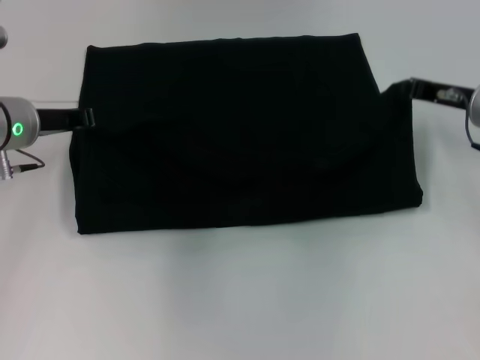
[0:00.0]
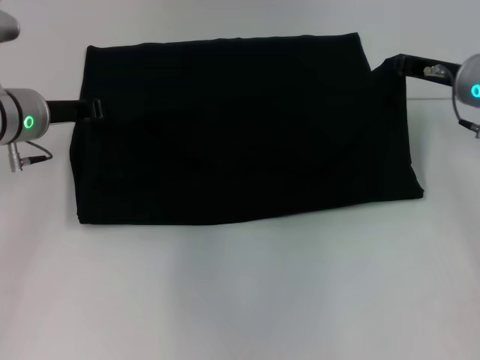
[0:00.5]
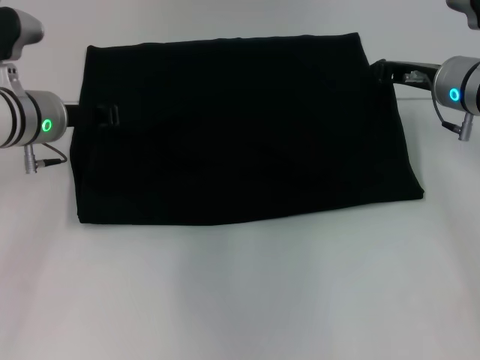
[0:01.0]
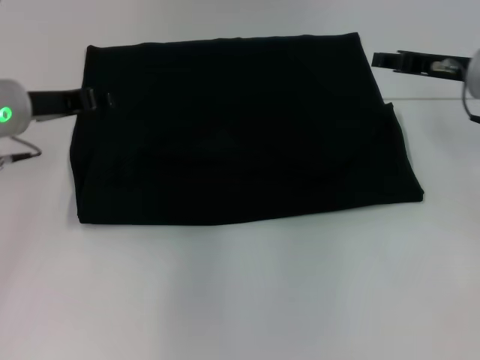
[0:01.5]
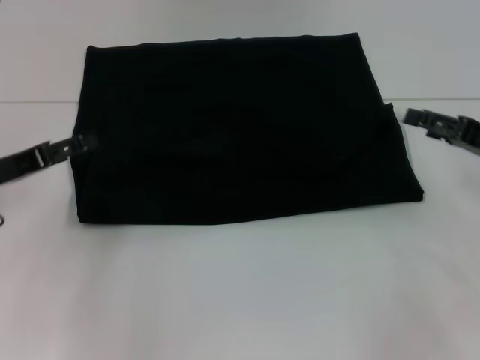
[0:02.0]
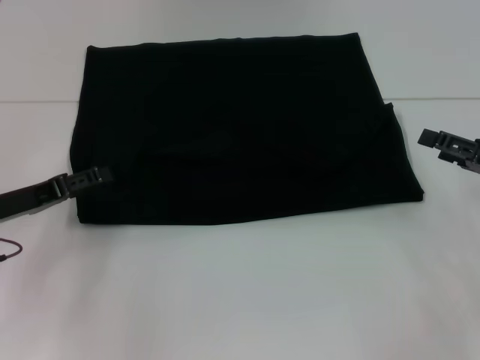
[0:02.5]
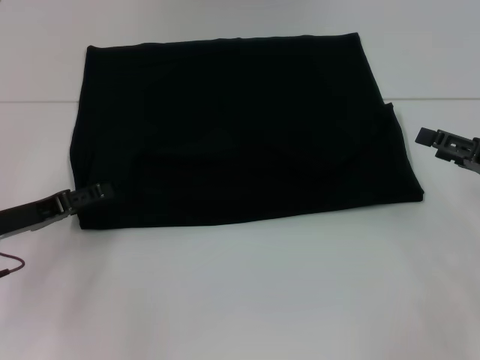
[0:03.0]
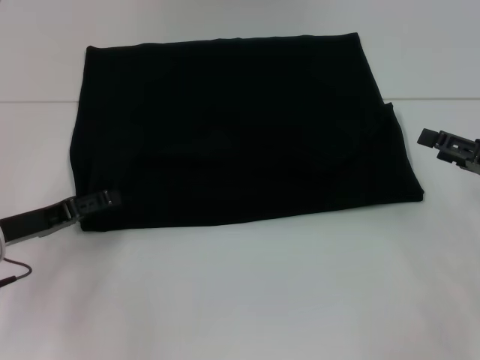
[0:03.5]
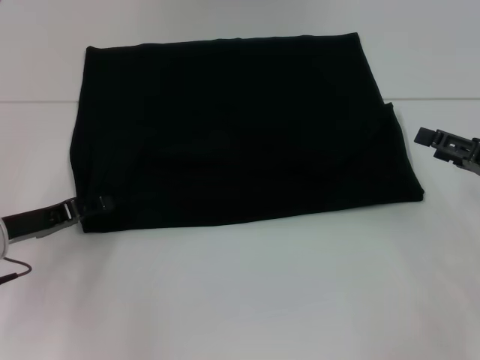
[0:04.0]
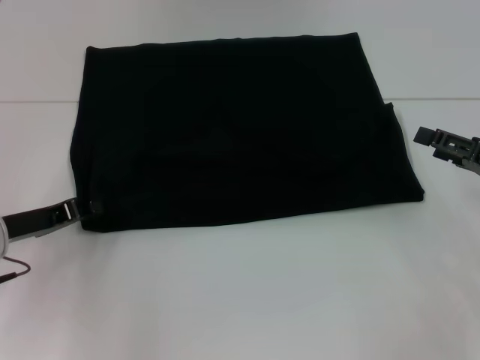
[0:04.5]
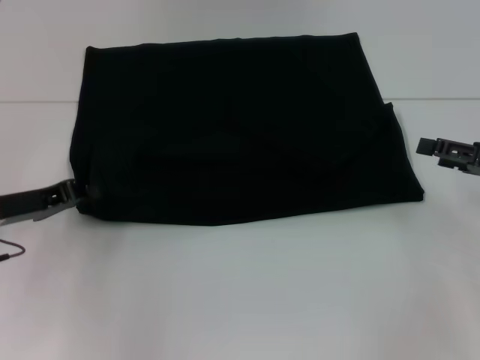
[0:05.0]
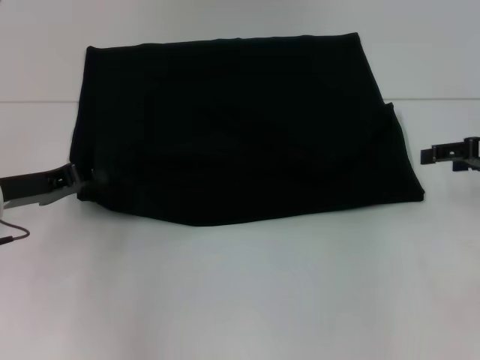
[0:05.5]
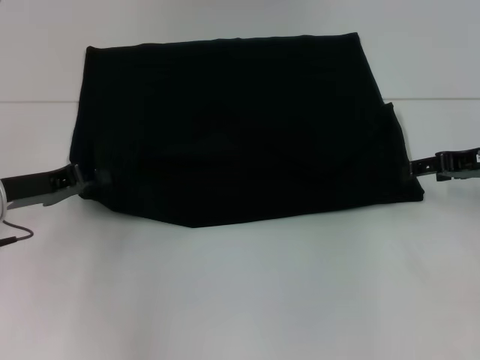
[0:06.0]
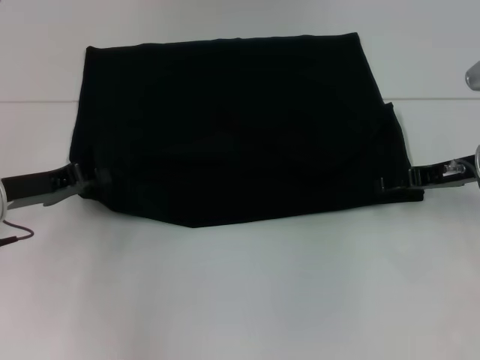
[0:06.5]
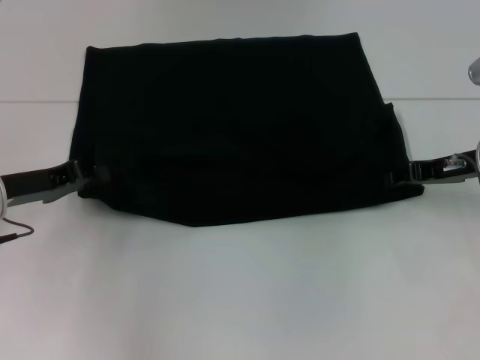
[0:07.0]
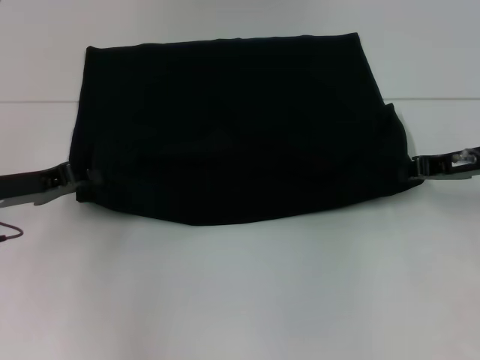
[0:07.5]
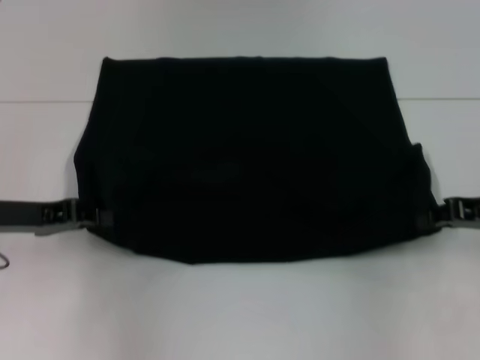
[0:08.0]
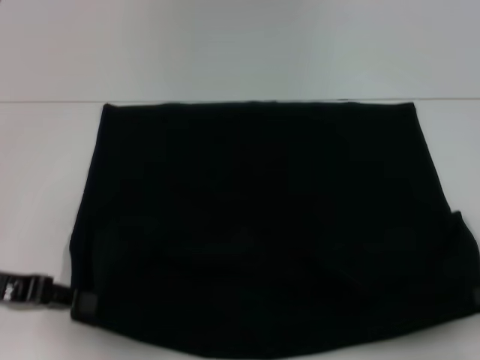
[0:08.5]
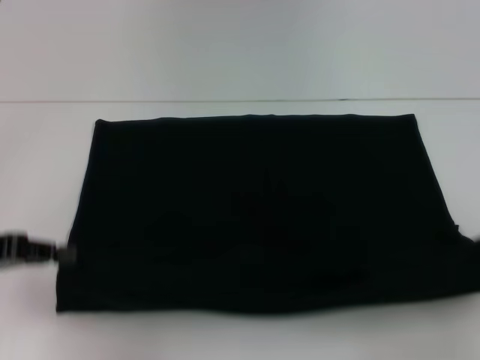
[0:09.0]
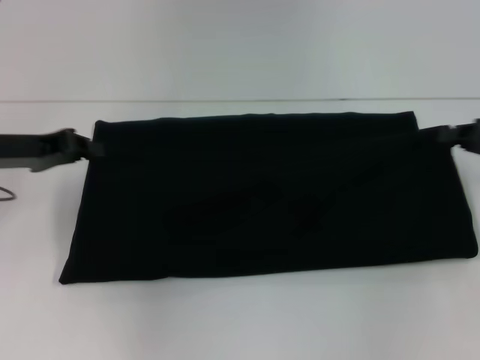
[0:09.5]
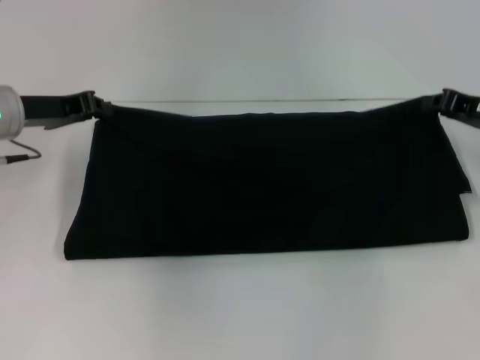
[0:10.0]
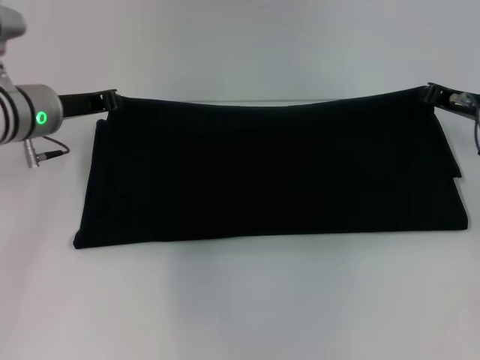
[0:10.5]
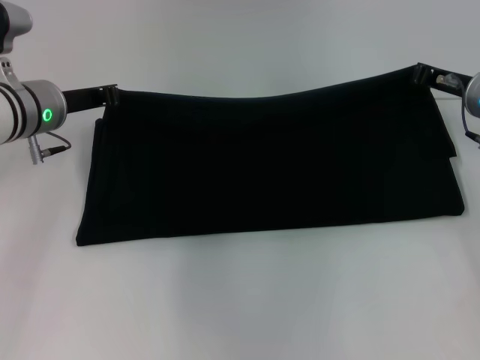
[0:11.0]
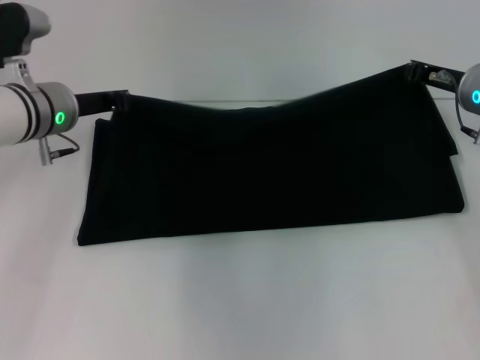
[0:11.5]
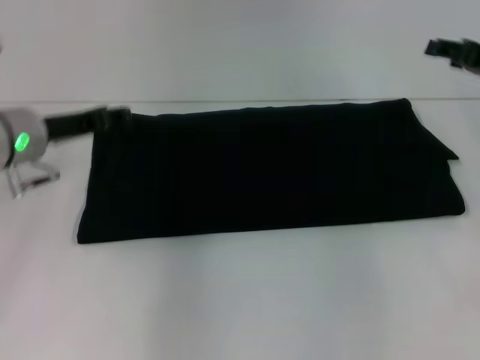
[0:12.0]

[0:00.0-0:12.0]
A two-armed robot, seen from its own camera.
Step, 0:01.5 to 0:08.5: Pull the clothes with your left hand.
Step, 0:01.5 to 0:08.5: Pull the clothes with your right hand.
Step, 0:09.0 to 0:11.5: Fold the clothes with your right hand.
0:00.0 to 0:02.0: The right gripper heads backward and to the right, covering about 10 cm, and opens, while the left gripper travels backward and to the left by some 10 cm, and opens its fingers.
0:02.0 to 0:04.0: The left gripper heads downward, covering roughly 5 cm.
0:04.0 to 0:06.0: The left gripper closes its fingers. Meanwhile the right gripper travels forward by roughly 5 cm.
0:06.0 to 0:08.0: The right gripper shifts approximately 5 cm backward, and closes up.
0:08.0 to 0:10.0: Both grippers travel together forward, roughly 5 cm.
0:10.0 to 0:12.0: The right gripper opens. Meanwhile the left gripper opens.

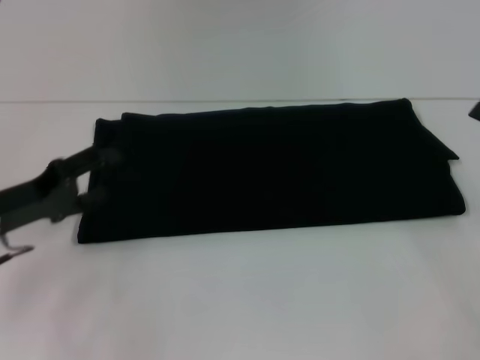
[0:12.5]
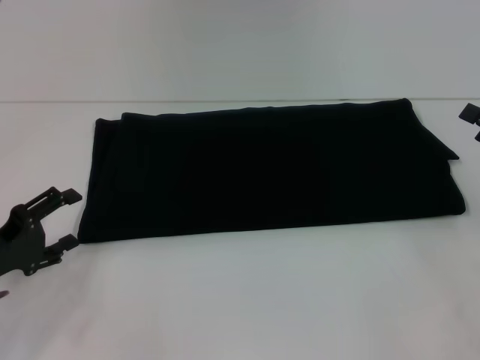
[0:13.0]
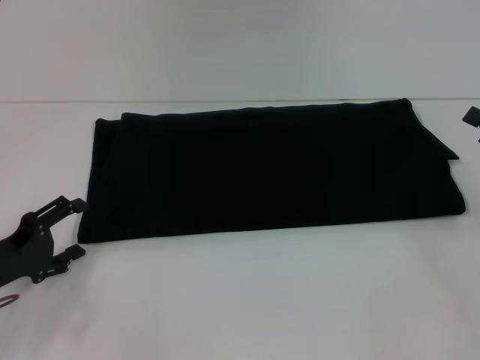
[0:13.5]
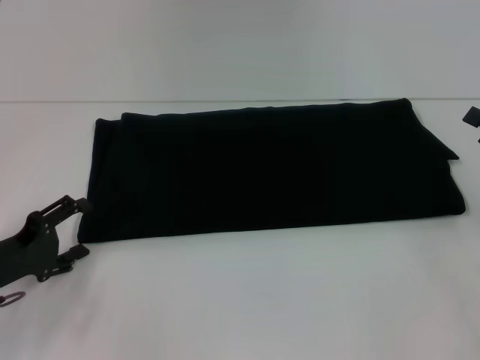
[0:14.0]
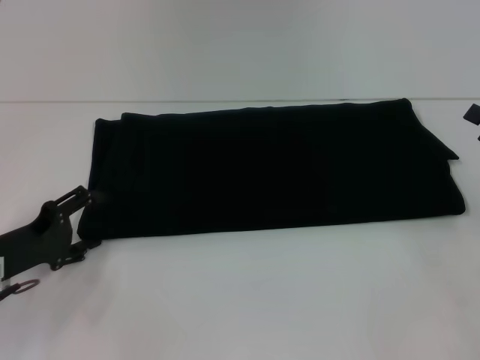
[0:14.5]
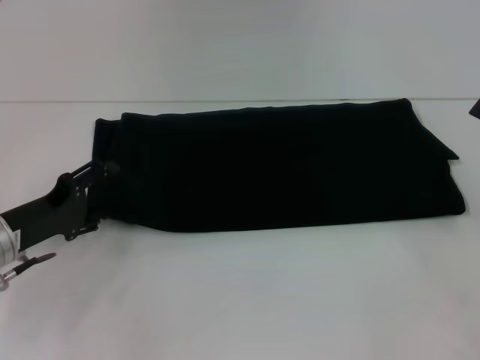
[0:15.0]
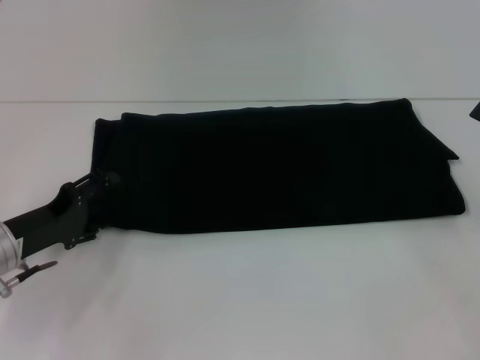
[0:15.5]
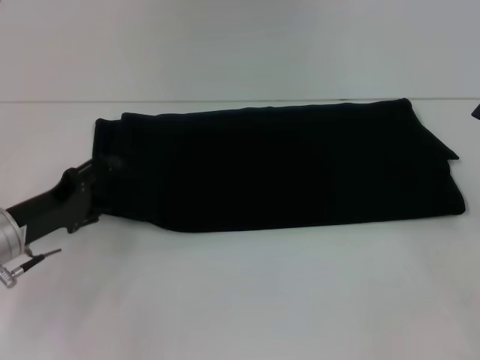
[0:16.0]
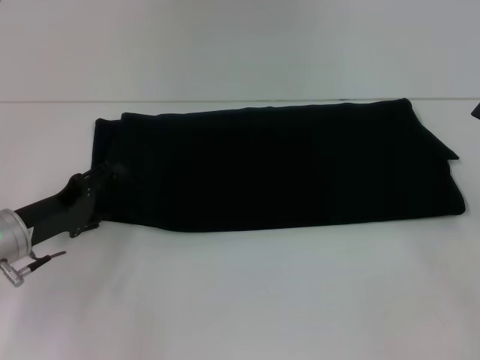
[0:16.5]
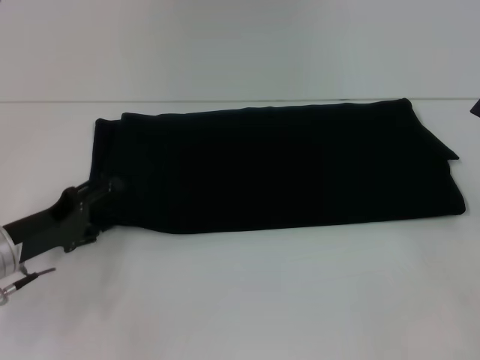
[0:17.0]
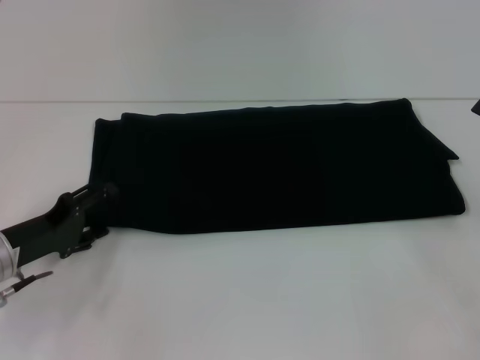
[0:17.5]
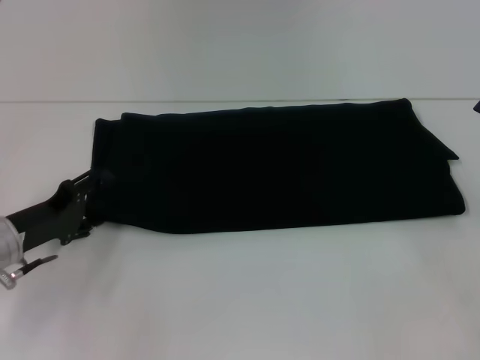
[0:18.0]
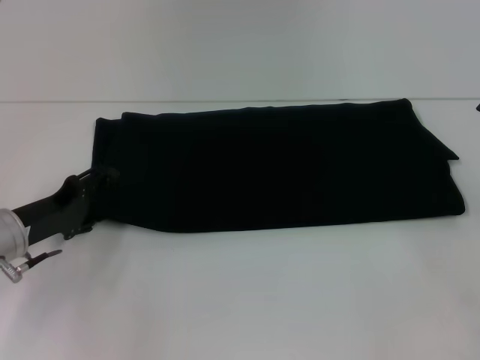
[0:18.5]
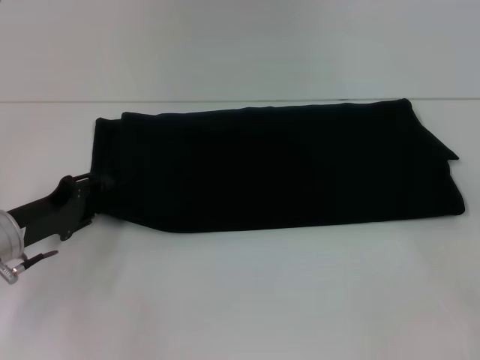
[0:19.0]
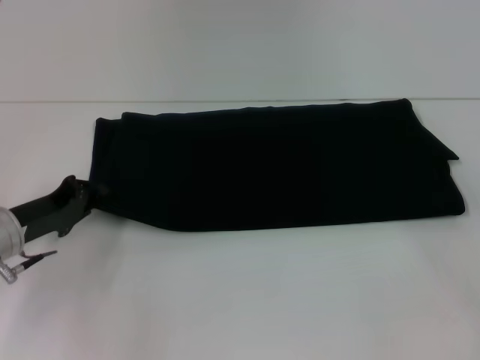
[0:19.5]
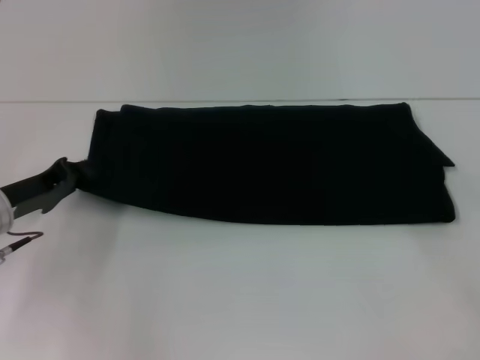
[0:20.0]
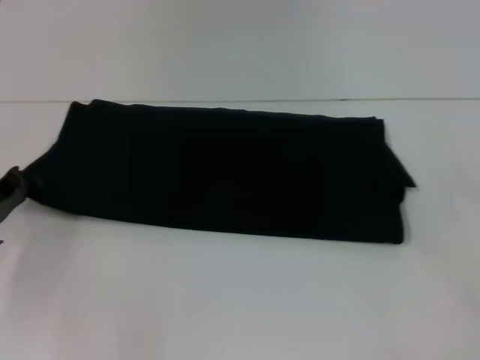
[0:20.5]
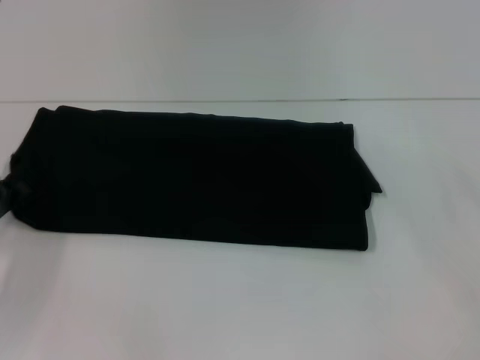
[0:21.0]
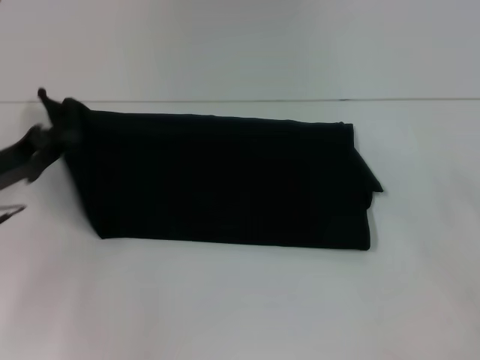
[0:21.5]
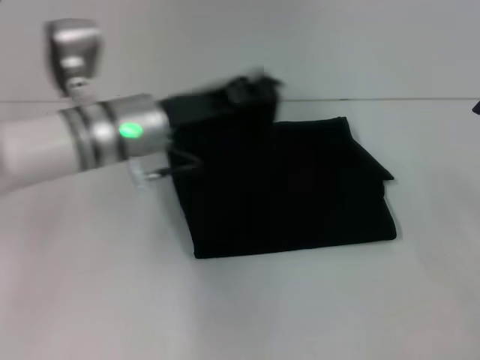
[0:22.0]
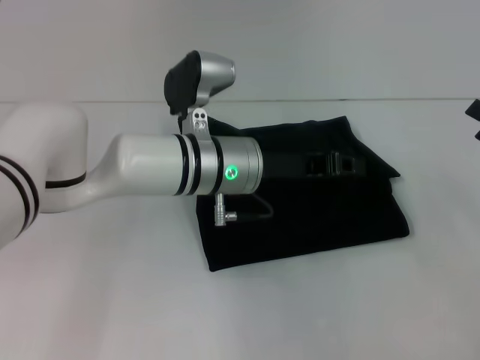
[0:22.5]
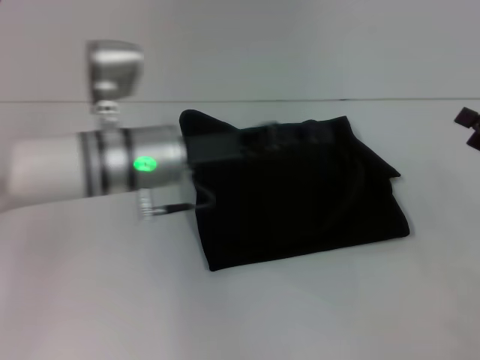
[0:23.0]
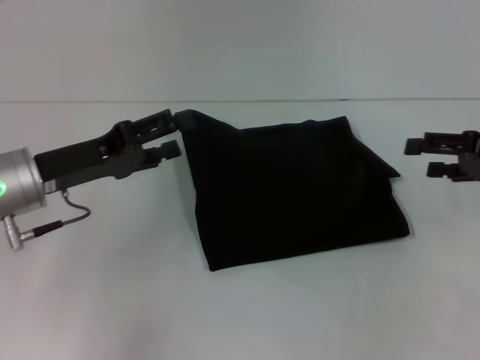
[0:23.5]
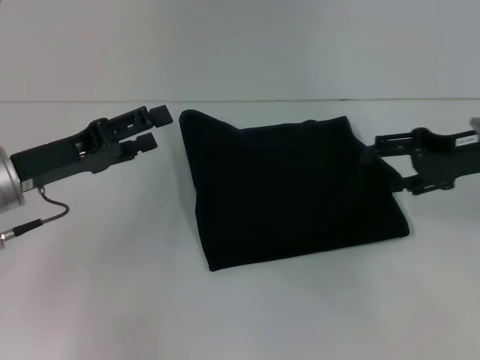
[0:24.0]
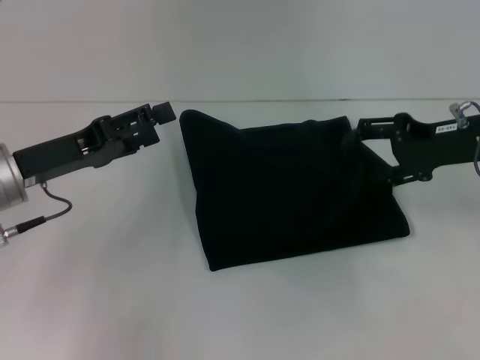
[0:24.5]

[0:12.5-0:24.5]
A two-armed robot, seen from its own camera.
0:12.5 to 0:14.5: The left gripper ends up some 5 cm from where it was.
0:14.5 to 0:18.5: The grippers stay close to where they were, moving slightly.
0:18.5 to 0:20.5: The left gripper travels to the left by roughly 5 cm, and closes.
0:20.5 to 0:22.5: The left gripper shifts roughly 30 cm to the right.
0:22.5 to 0:24.5: The right gripper is displaced forward, to the left and upward by approximately 15 cm; the left gripper heads to the left, covering about 20 cm, and opens up.

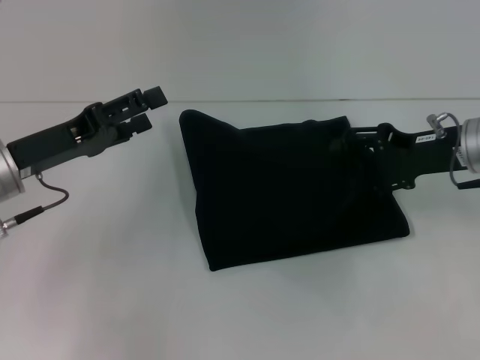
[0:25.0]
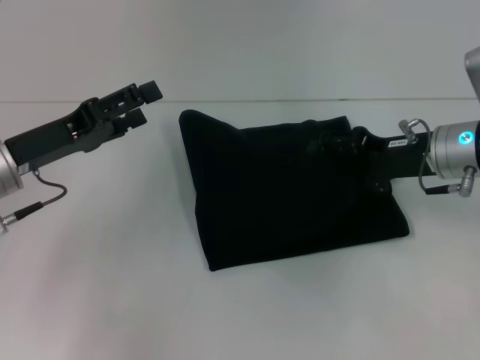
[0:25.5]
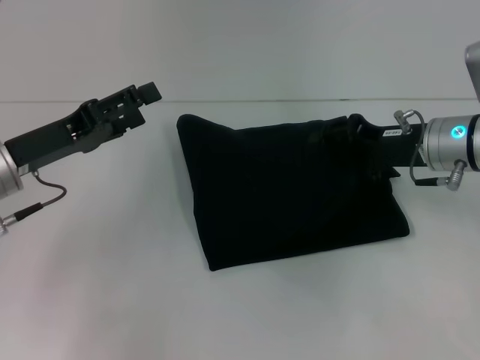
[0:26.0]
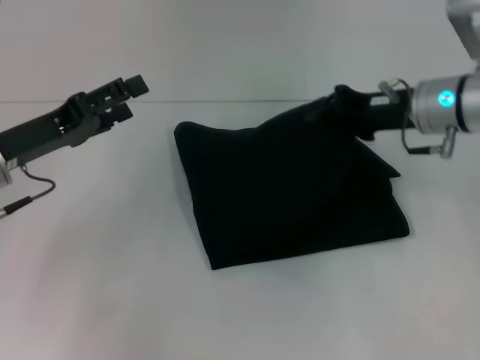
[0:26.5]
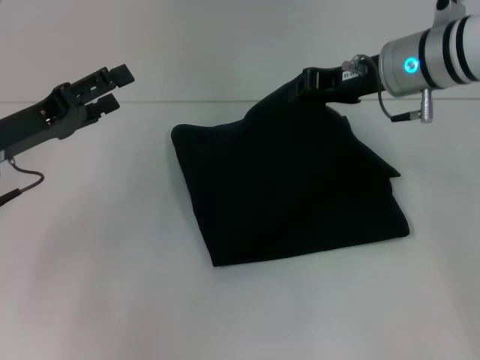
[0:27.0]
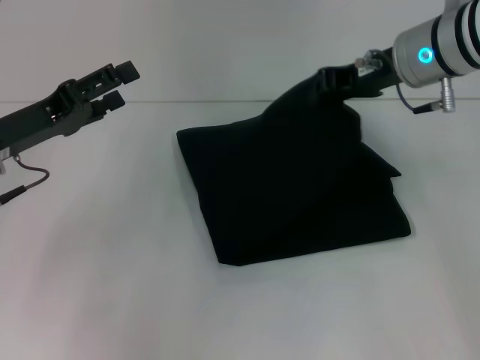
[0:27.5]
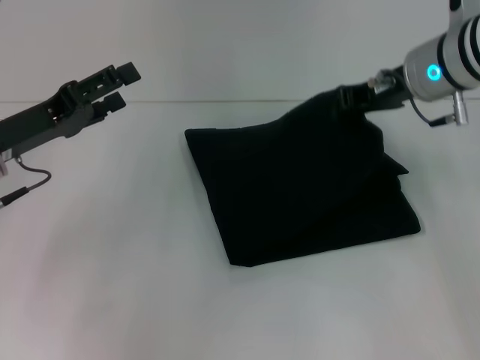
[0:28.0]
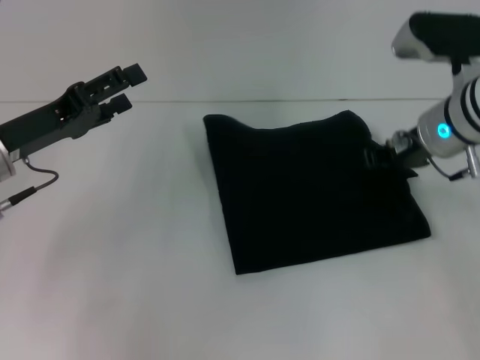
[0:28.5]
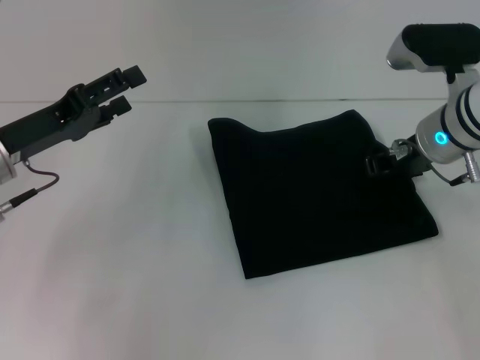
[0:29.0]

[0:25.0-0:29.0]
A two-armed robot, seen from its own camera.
0:25.0 to 0:27.0: The right gripper moves to the left and upward, some 10 cm, and closes up.
0:27.0 to 0:29.0: The right gripper moves downward, roughly 5 cm.
